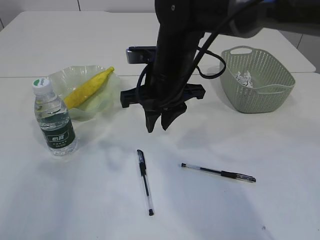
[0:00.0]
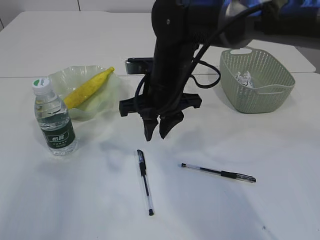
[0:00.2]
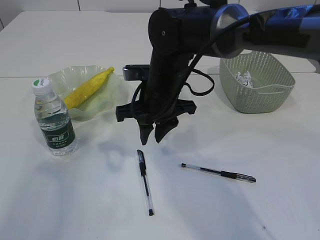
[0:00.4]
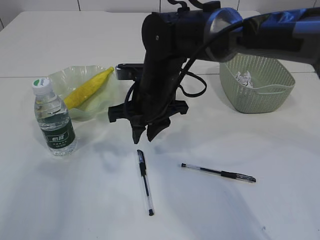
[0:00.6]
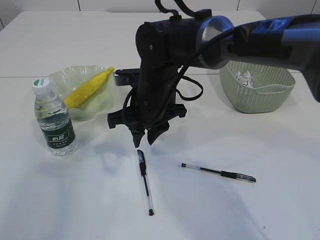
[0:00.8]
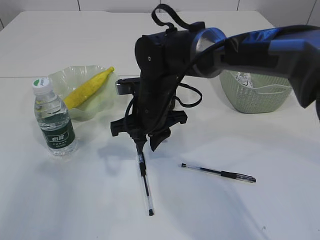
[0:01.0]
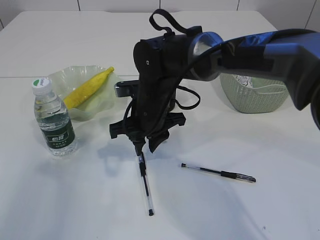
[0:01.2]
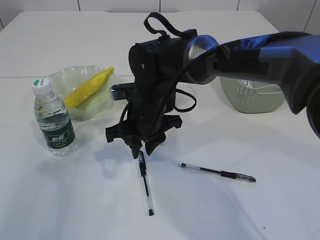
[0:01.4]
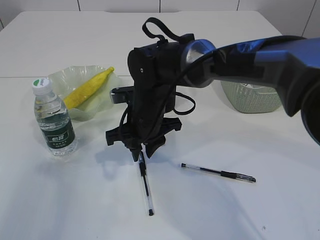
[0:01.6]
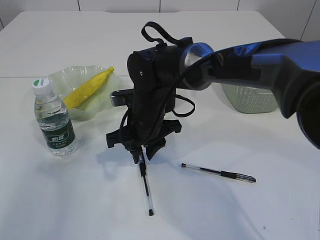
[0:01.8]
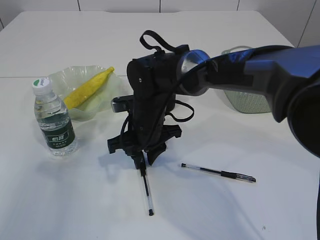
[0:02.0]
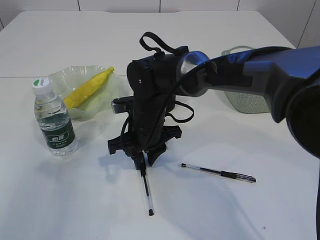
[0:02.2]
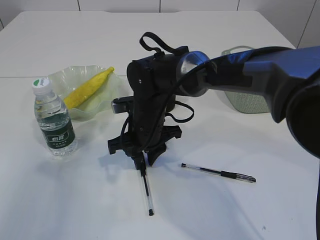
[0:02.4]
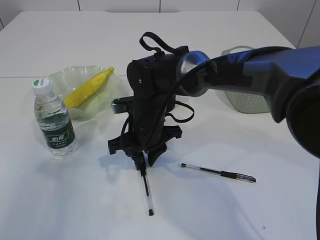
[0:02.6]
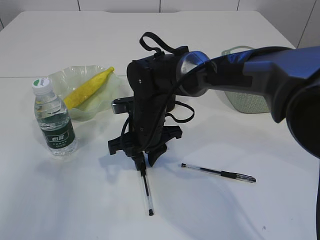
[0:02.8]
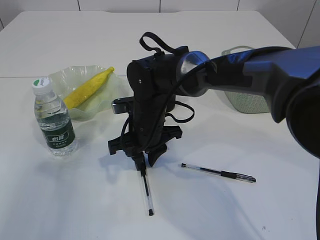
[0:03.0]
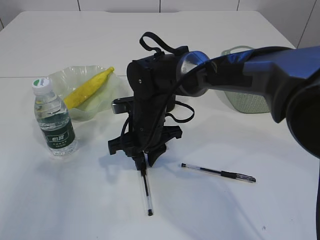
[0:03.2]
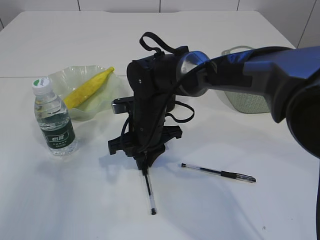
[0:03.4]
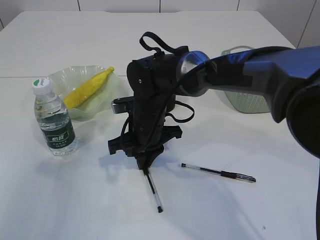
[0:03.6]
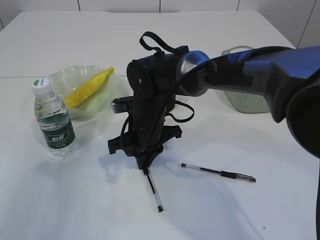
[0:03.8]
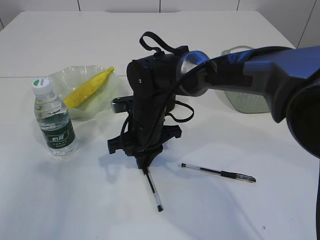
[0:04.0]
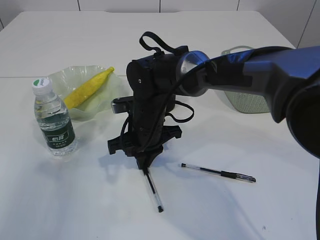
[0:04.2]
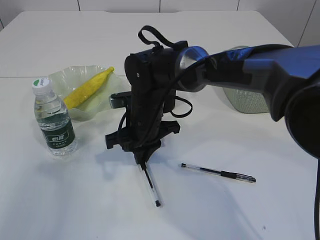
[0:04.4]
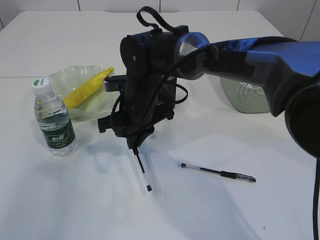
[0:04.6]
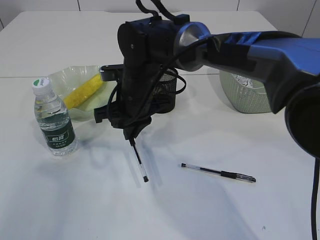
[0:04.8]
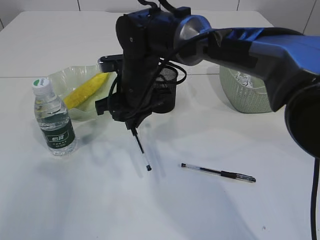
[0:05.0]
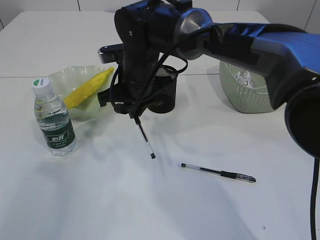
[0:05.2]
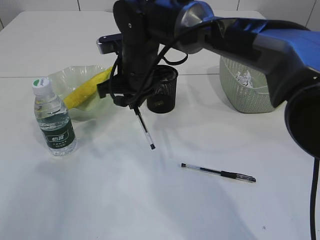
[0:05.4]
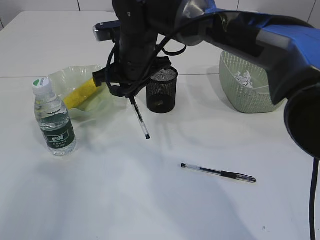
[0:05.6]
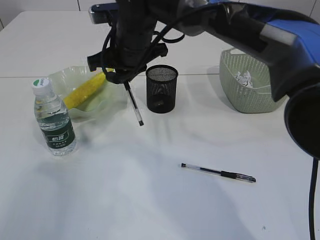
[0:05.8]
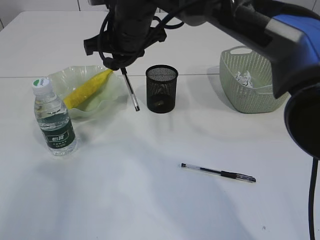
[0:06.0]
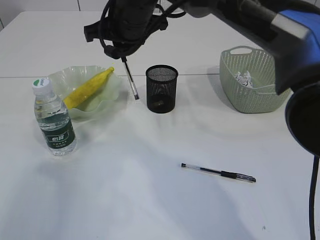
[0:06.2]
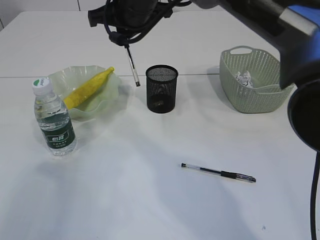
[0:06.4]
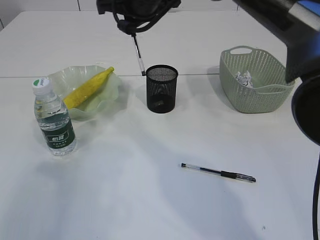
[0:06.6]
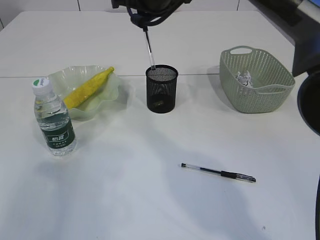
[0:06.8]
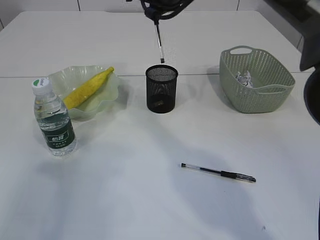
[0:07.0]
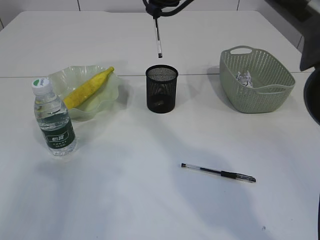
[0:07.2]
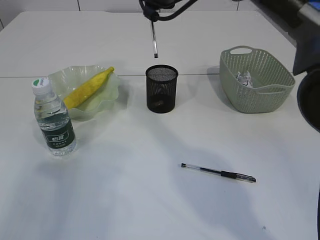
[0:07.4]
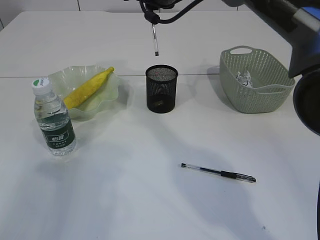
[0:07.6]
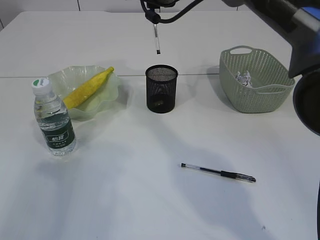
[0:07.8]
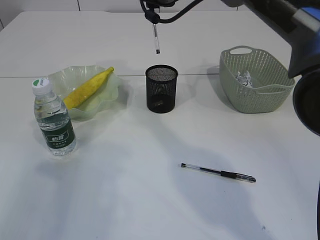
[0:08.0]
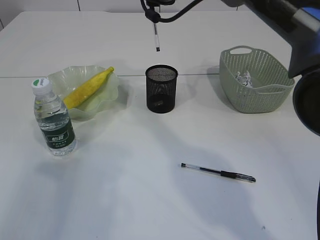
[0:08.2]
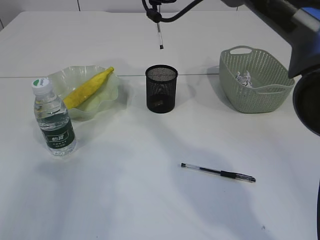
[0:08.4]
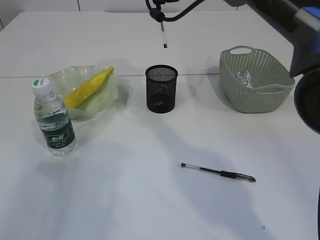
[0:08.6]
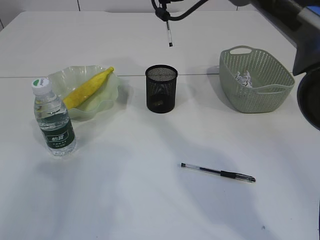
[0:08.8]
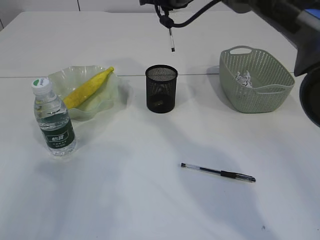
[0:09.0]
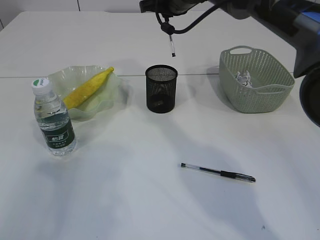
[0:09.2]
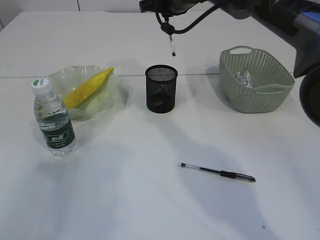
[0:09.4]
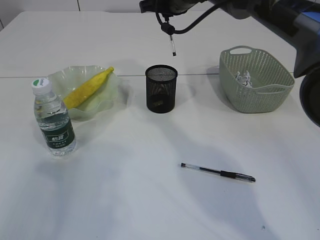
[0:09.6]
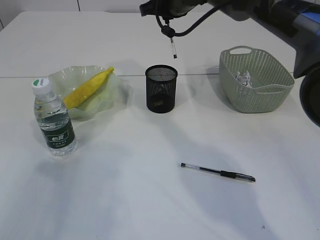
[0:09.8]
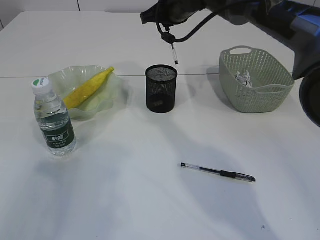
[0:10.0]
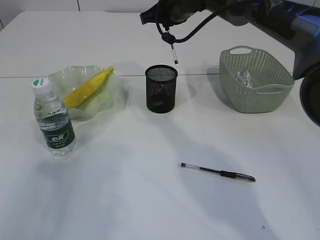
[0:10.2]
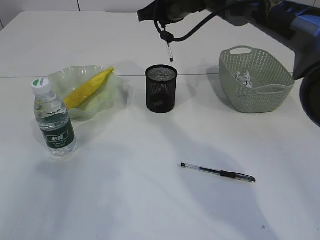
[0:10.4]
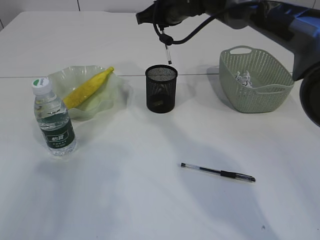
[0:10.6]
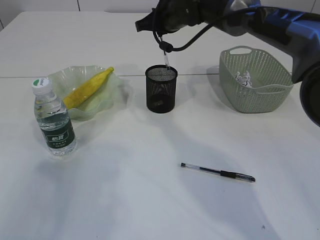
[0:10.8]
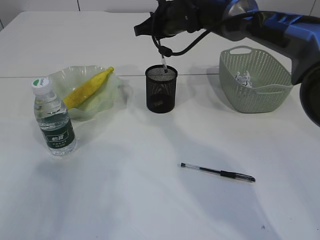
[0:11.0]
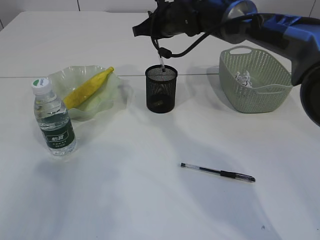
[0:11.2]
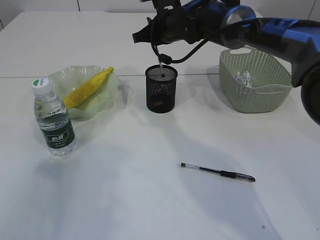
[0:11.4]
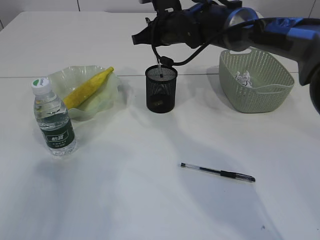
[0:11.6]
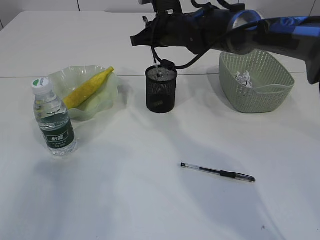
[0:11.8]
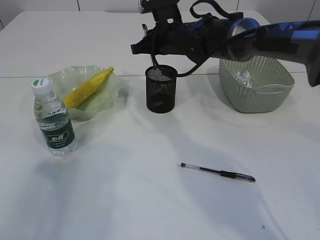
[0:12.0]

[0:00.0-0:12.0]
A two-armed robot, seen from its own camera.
Step, 0:00.0 to 0:05.0: Pick up the pen with right arm.
0:00.0 to 0:01.6: The right gripper is displaced downward by some 10 cm.
0:01.6 to 0:03.0: The grippers stay close to where they were, moving slightly.
0:03.0 to 0:04.4: The right gripper closes.
0:04.4 to 0:06.0: The right gripper goes approximately 15 cm upward.
0:06.0 to 0:07.6: The right gripper is displaced to the right and forward by some 10 cm.
0:07.6 to 0:10.4: The grippers move only a little.
0:10.4 to 0:12.0: The right gripper moves downward, about 5 cm.

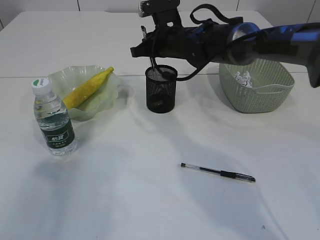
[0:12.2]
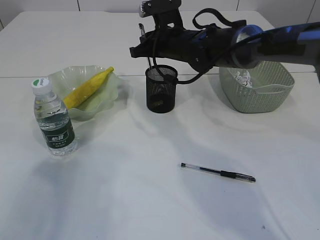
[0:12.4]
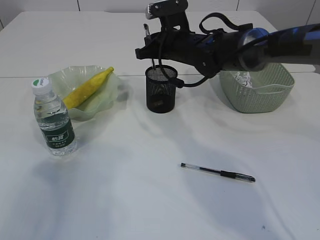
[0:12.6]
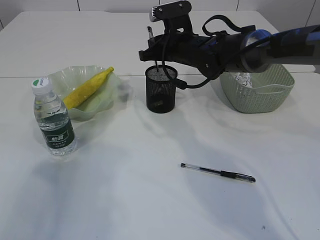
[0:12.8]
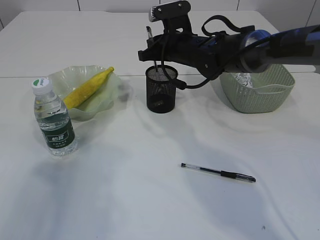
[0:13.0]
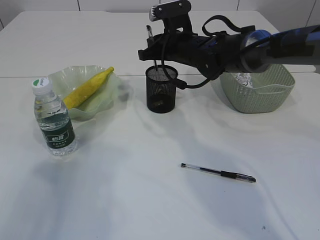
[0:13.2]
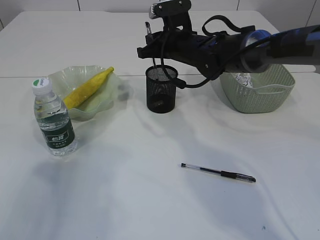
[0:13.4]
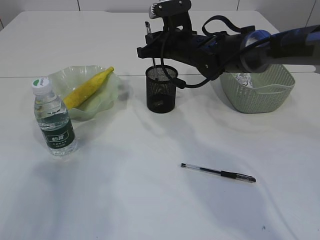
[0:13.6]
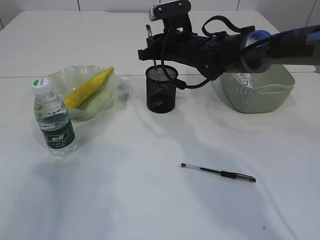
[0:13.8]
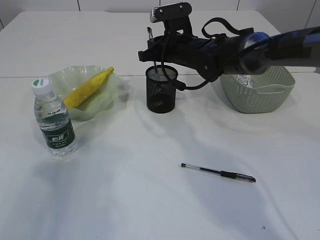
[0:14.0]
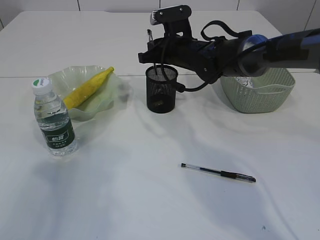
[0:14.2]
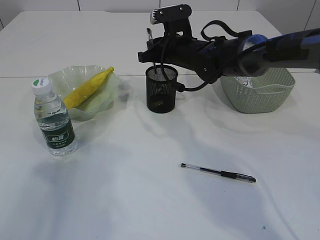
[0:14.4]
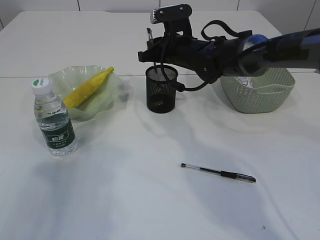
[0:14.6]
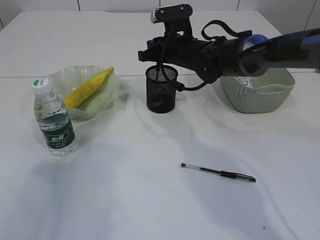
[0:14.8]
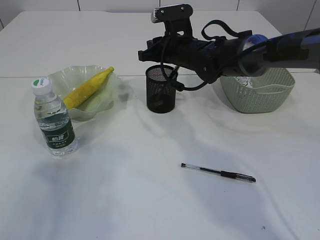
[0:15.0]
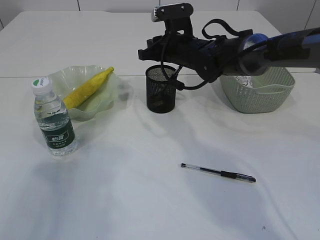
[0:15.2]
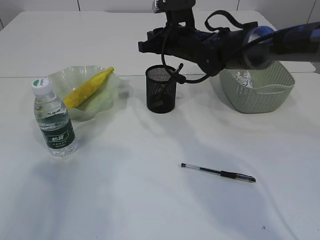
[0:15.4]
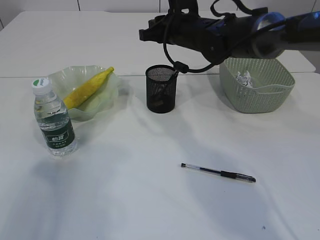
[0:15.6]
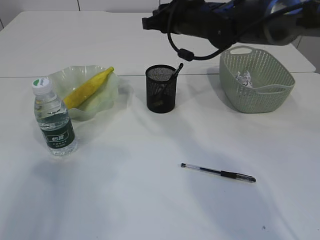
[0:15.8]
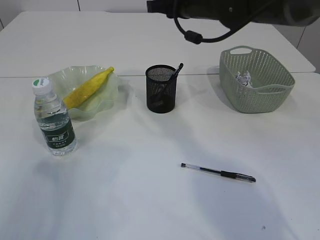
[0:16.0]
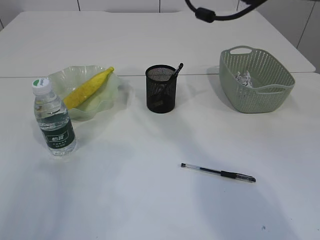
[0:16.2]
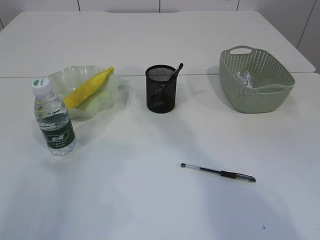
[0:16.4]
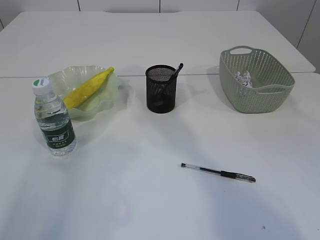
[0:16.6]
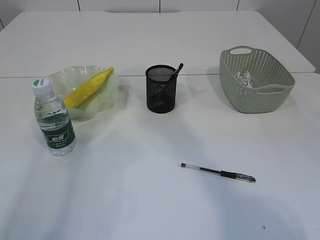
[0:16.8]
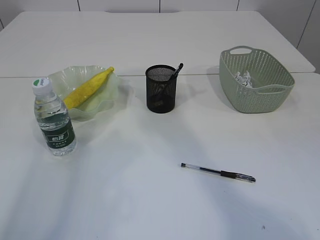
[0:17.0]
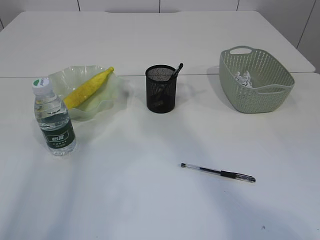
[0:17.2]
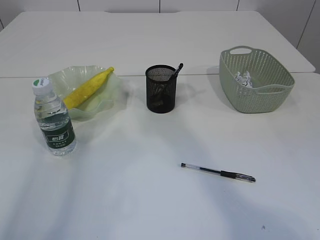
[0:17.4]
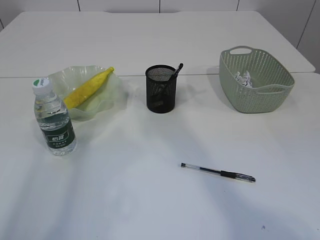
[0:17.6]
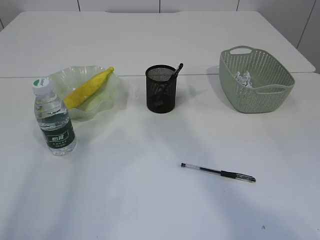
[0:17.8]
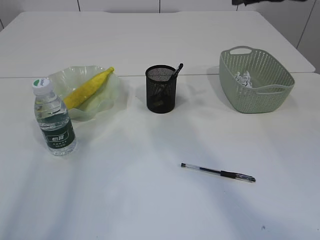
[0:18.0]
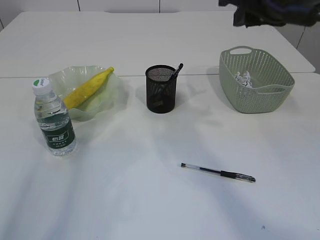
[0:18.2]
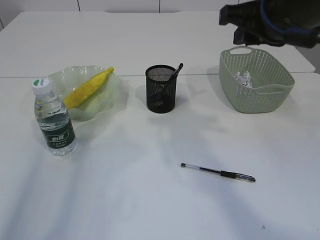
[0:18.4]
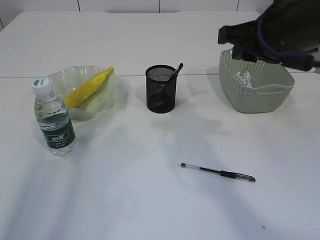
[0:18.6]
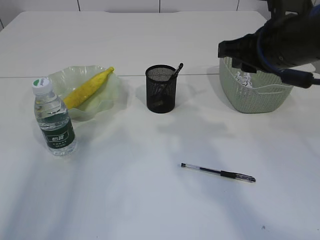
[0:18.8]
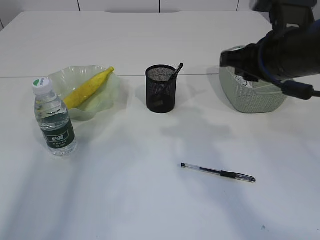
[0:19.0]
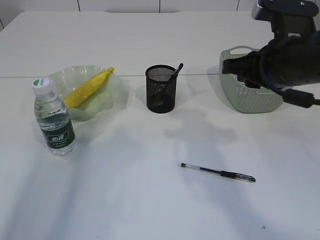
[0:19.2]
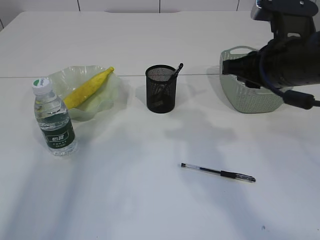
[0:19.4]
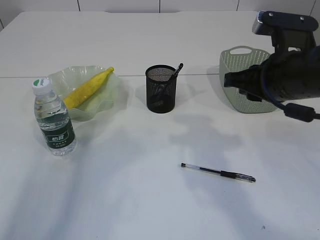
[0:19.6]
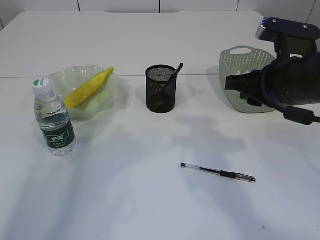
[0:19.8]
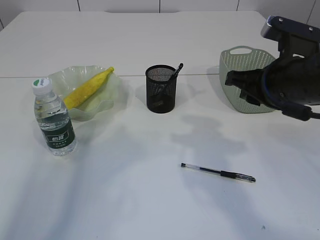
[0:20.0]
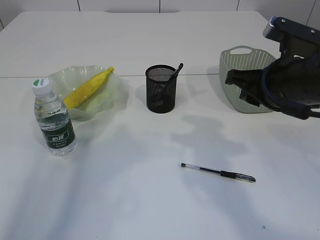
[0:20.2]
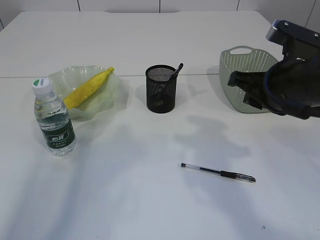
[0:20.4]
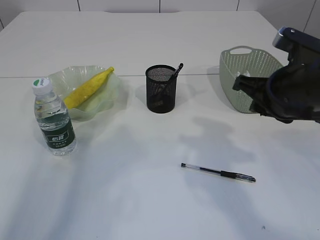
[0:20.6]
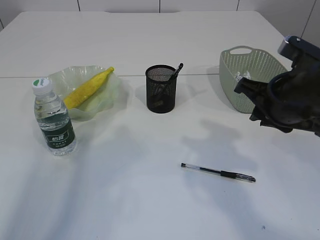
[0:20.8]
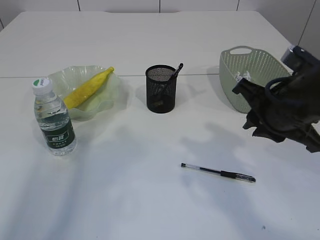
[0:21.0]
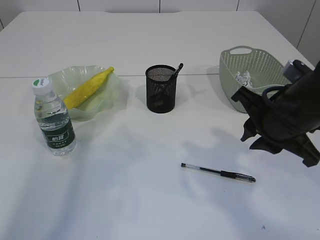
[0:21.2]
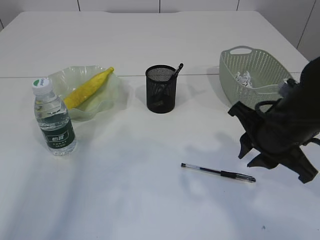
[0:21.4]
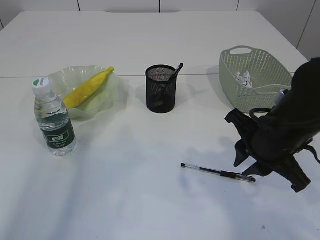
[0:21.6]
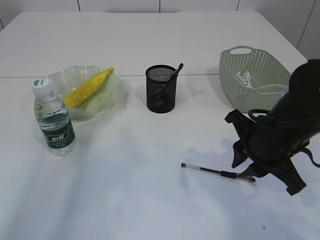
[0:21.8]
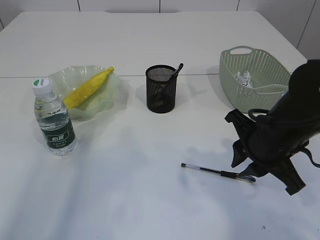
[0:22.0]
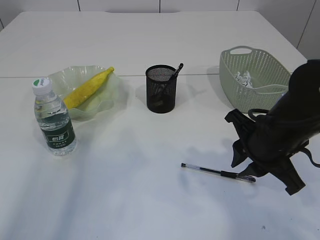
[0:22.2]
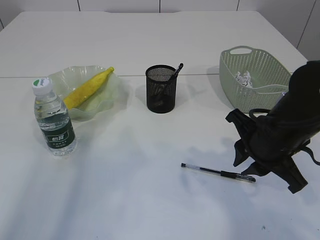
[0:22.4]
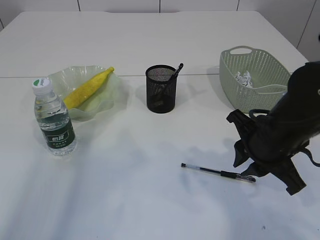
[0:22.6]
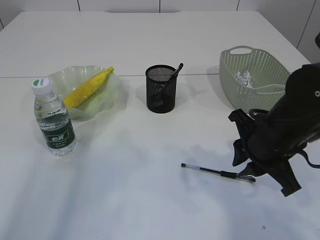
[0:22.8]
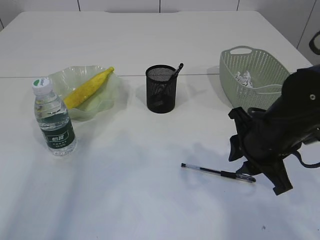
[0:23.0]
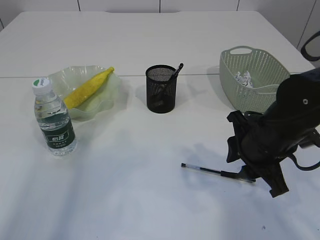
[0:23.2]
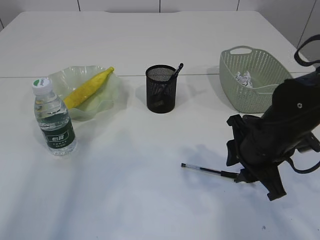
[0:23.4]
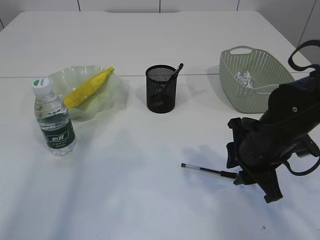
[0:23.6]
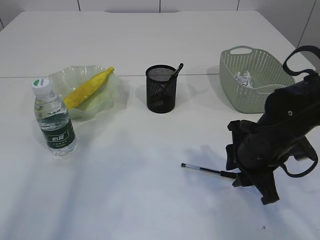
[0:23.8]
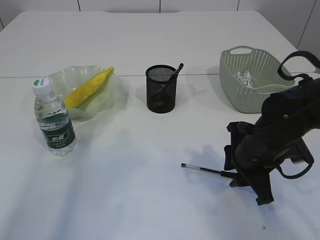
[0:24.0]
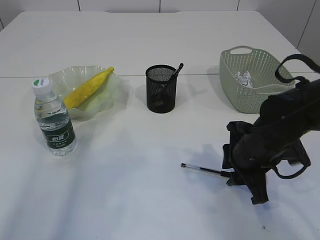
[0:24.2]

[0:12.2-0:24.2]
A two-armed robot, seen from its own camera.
Step, 0:12.2 to 0:15.4: Place the pen into the pen holder.
0:12.2 to 0:13.8: The grippers make only small movements.
0:13.8 to 0:15.2: Neither gripper changes place.
0:15.2 to 0:16.6: The right gripper heads upward and backward, covering roughly 25 cm.
0:16.6 to 0:18.2: The right gripper heads backward, covering about 10 cm.
0:18.2 to 0:19.8: The right gripper shifts about 10 cm downward.
0:21.2 to 0:22.6: The grippers move only a little.
0:22.6 to 0:24.2: The right gripper moves downward, about 5 cm, and opens.
